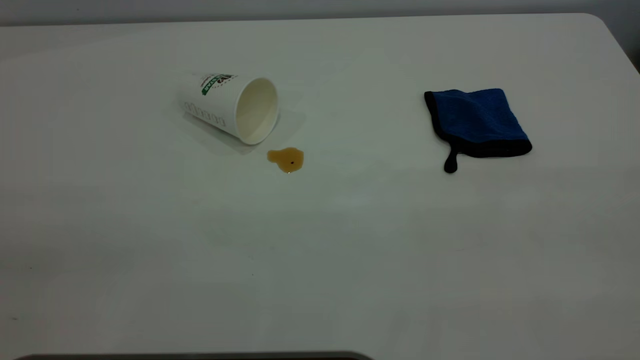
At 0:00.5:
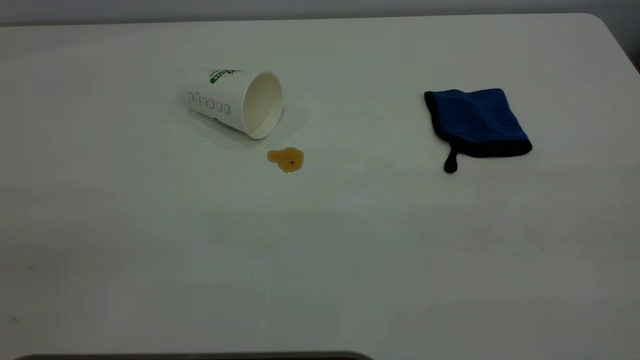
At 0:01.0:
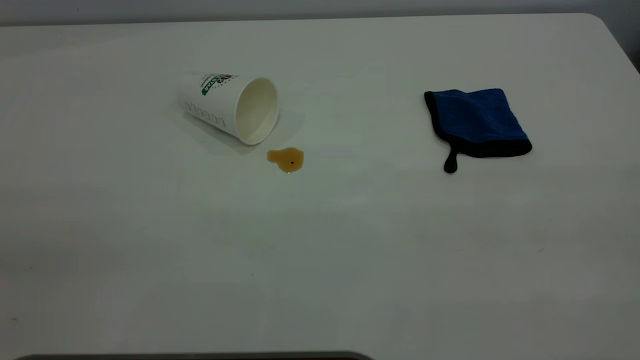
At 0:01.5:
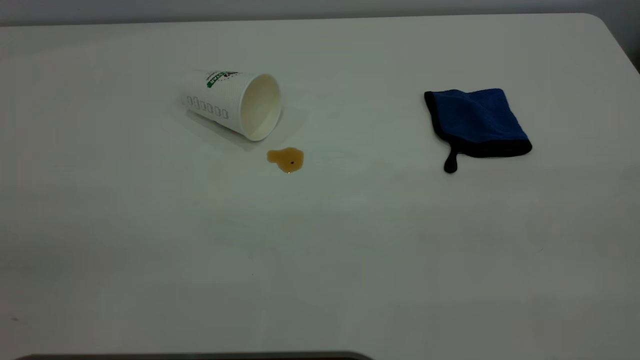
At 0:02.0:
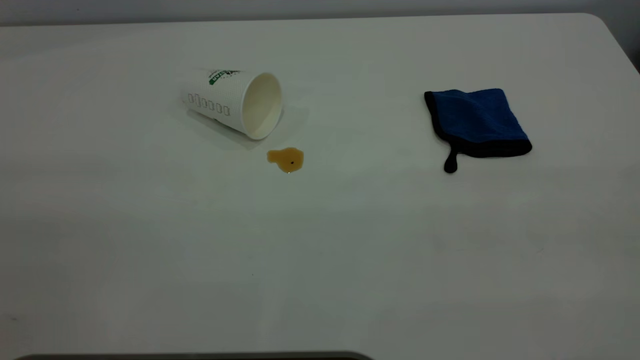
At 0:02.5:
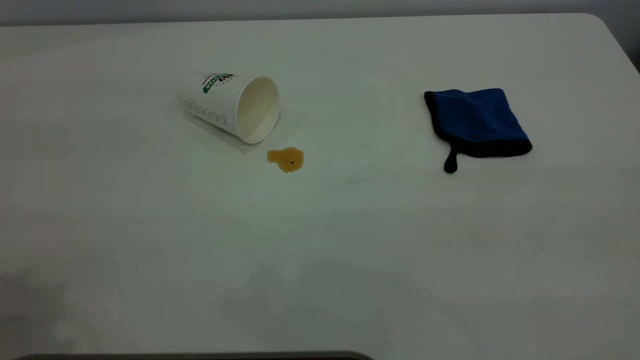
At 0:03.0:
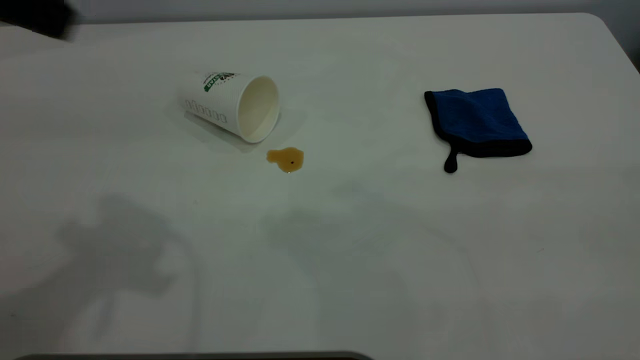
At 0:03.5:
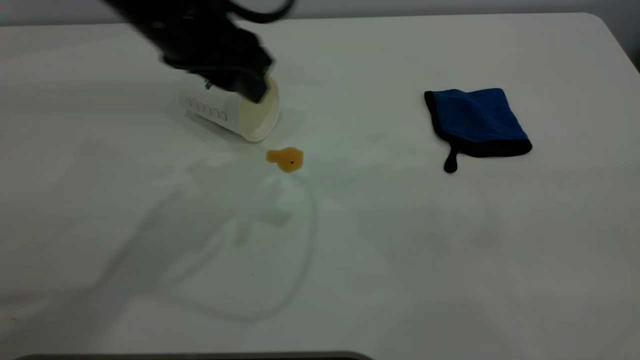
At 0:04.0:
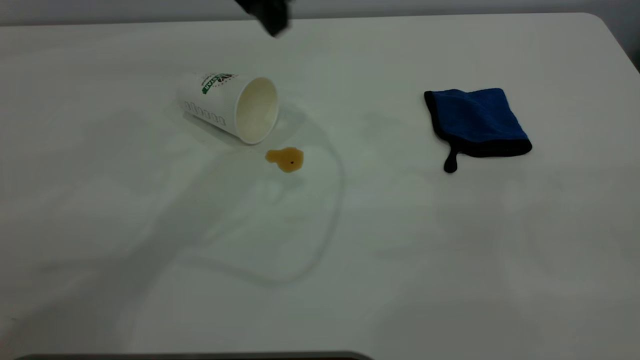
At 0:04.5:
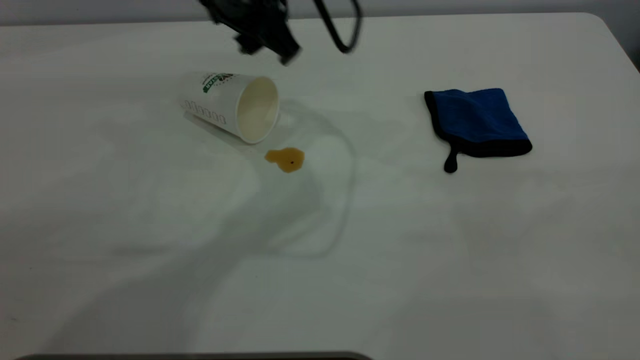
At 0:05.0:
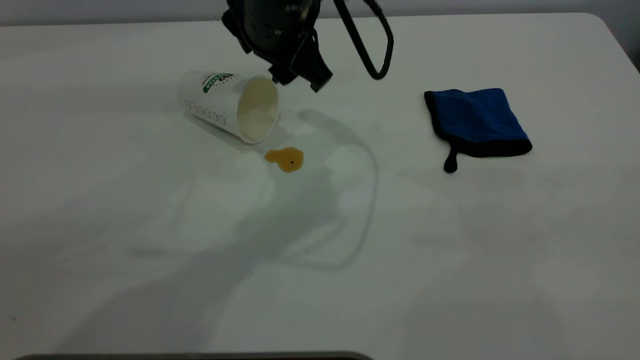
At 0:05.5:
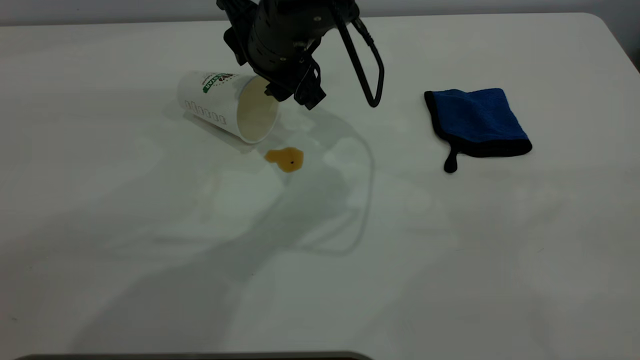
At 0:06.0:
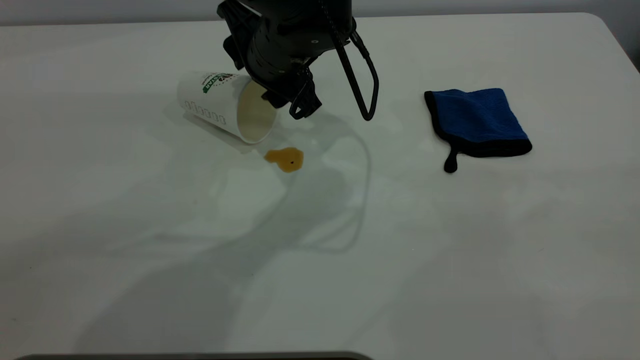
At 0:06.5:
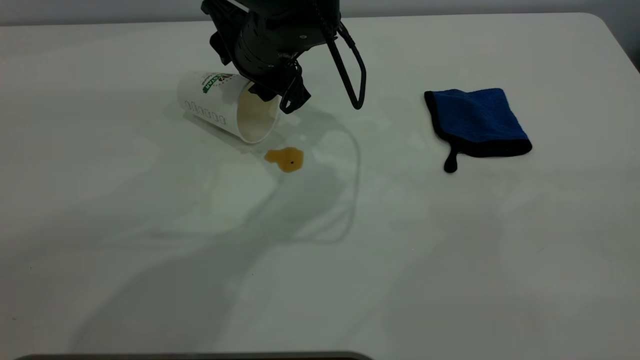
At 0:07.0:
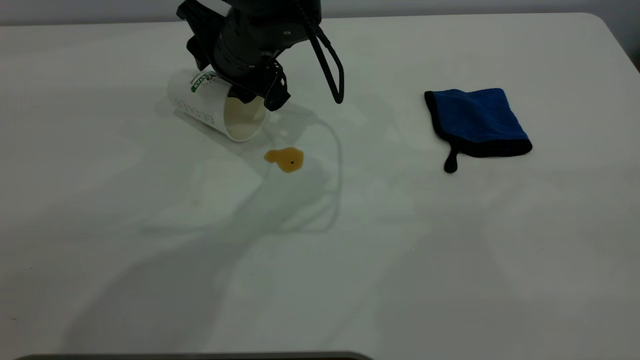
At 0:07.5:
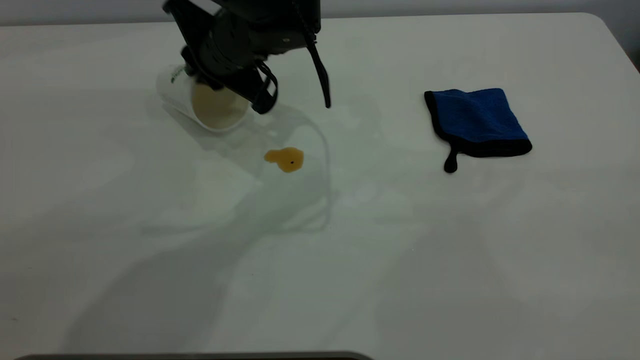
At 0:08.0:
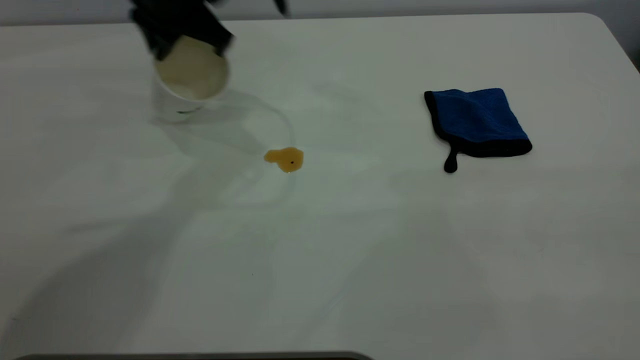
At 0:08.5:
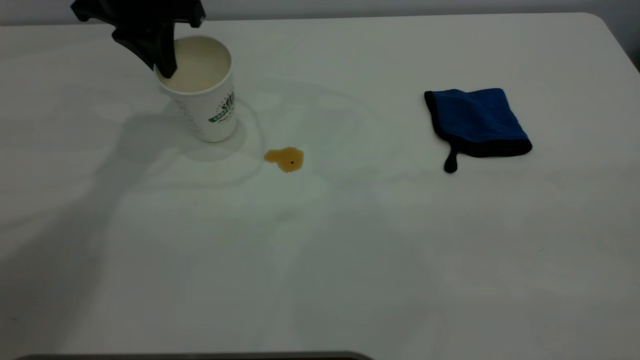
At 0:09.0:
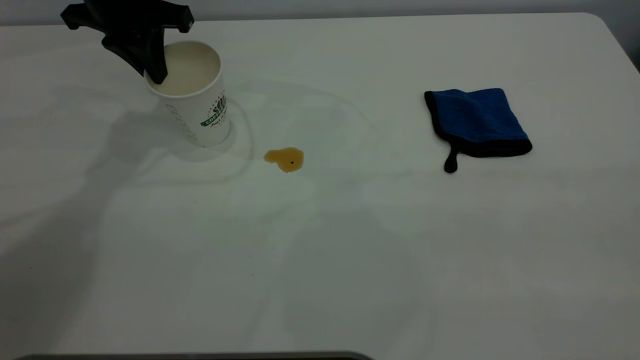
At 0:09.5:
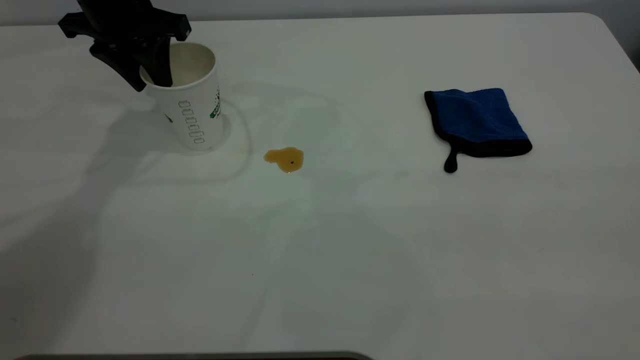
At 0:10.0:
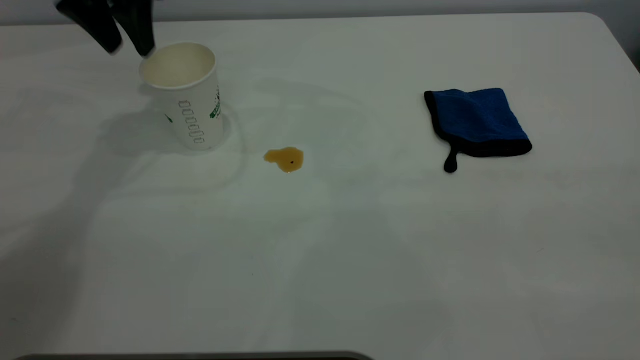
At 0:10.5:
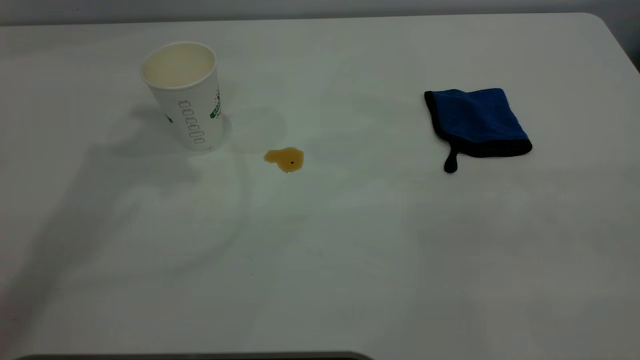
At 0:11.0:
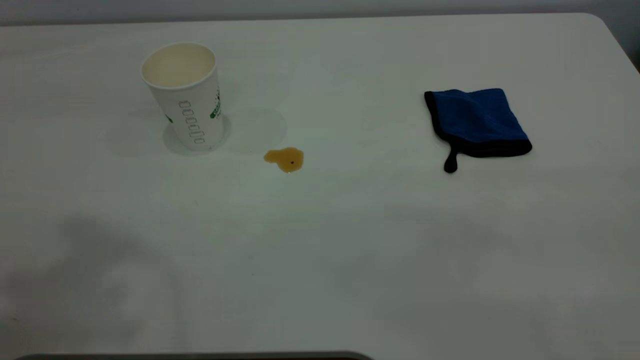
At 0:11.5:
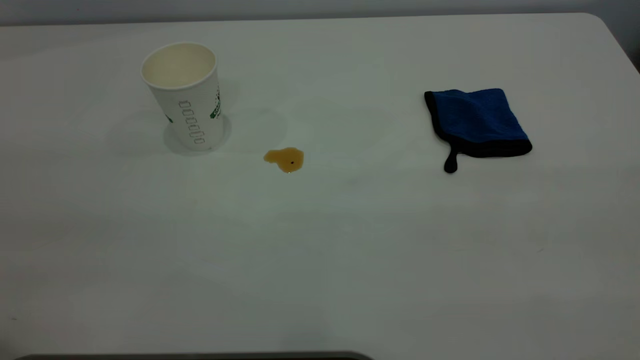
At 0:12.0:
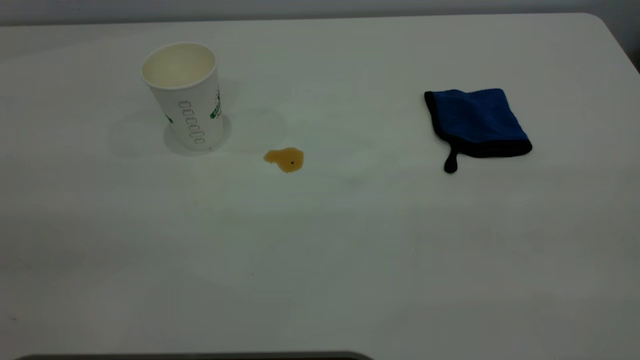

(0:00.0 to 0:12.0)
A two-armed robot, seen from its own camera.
Task of the whole recording: the left gripper pick up the fallen cup and place it upright, the right gripper grasp the blue rag and wipe the tea stain on the table, the right gripper put the blue rag back in its original position.
Step, 0:00.0 - 0:09.5: Stand the paper cup upright.
0:02.0 - 0:04.0: The left gripper shifts about 40 cm forward and to the right.
0:04.0 - 0:06.0: The left gripper shifts about 15 cm downward.
0:06.0 - 0:08.0: The left gripper moves to the left and upward, about 15 cm, and closes.
0:08.0 - 0:10.0: The left gripper moves to the left, about 10 cm, and opens.
0:10.0 - 0:12.0: The left gripper shifts roughly 40 cm backward.

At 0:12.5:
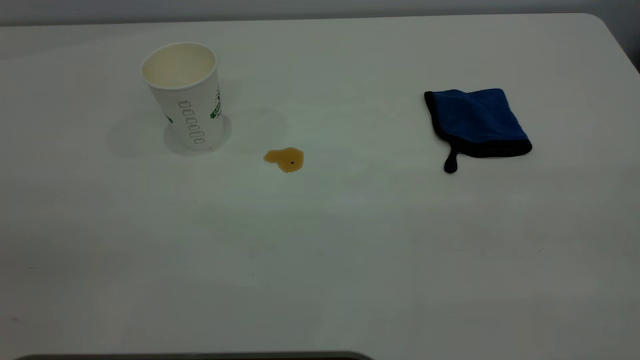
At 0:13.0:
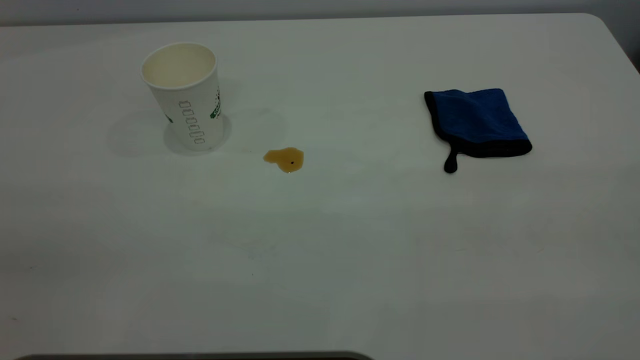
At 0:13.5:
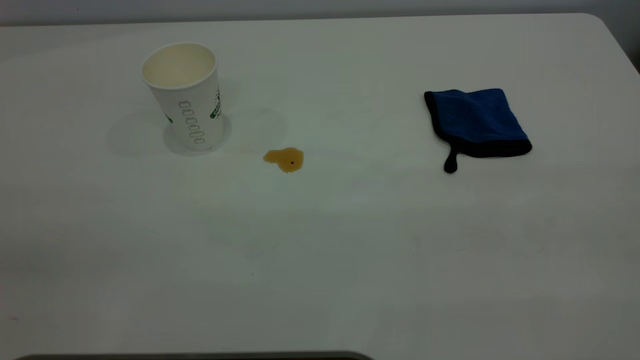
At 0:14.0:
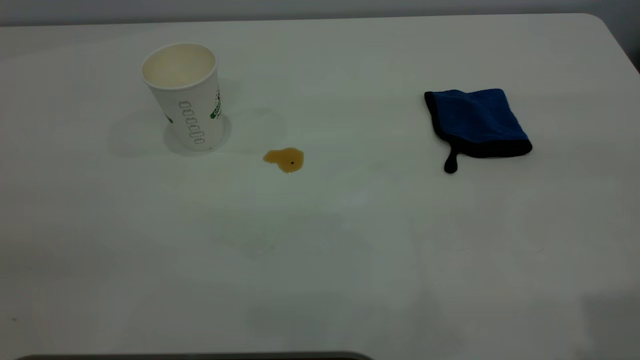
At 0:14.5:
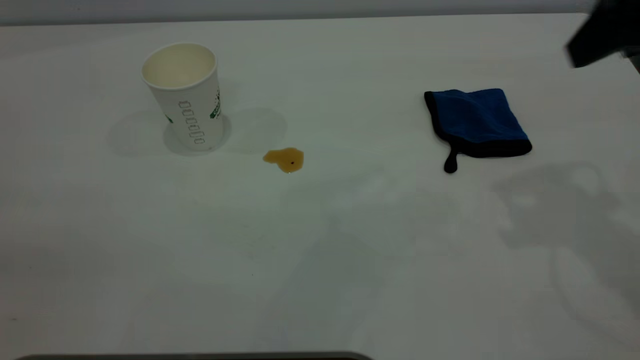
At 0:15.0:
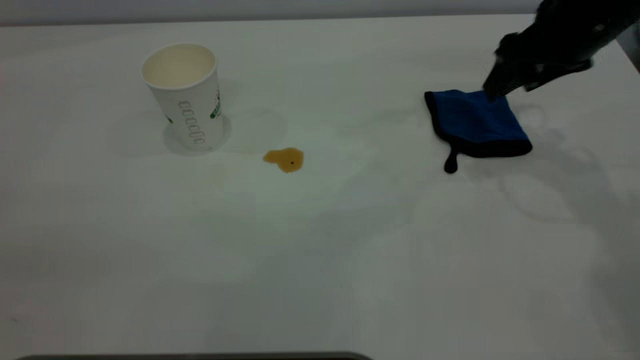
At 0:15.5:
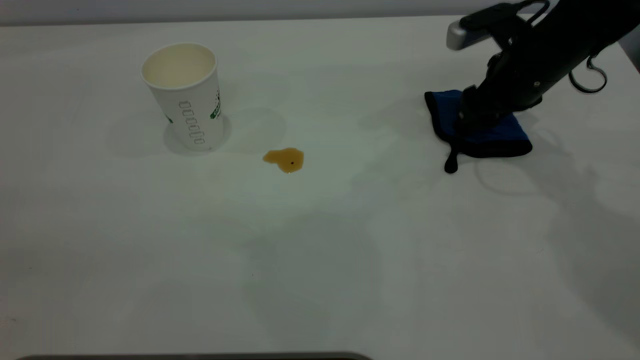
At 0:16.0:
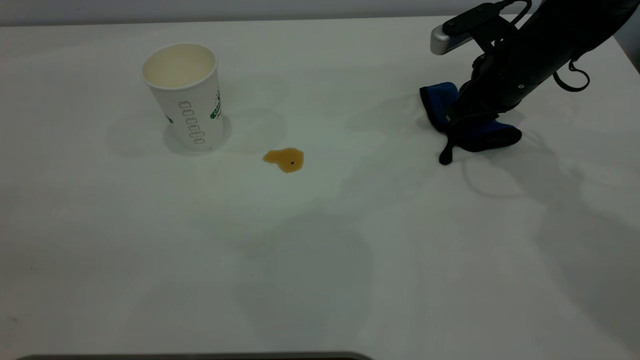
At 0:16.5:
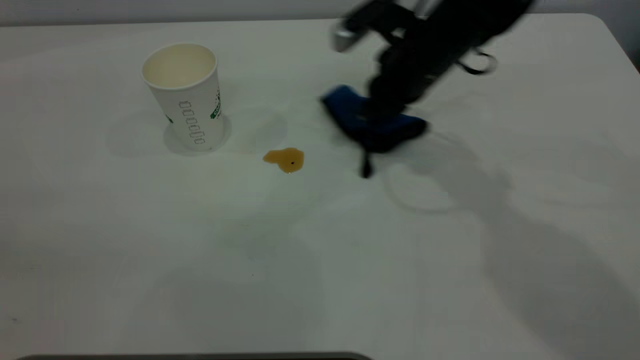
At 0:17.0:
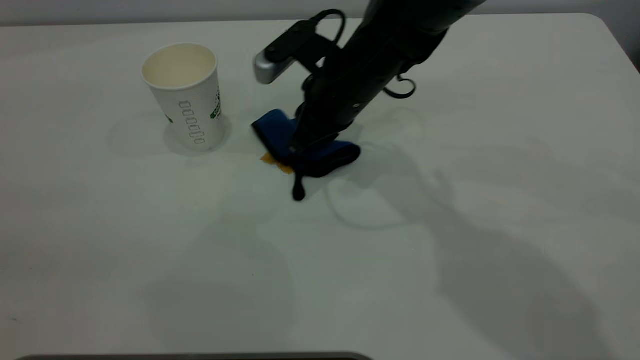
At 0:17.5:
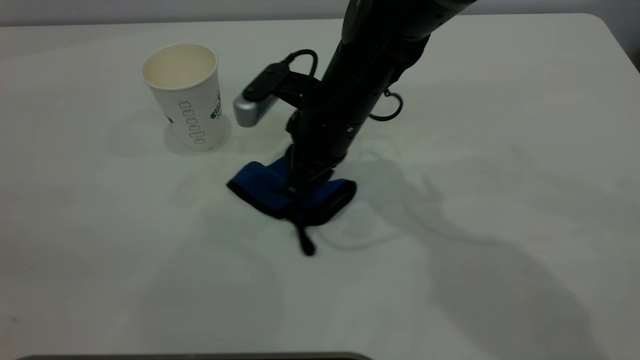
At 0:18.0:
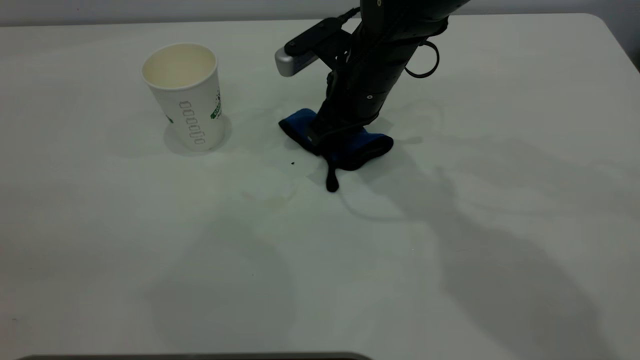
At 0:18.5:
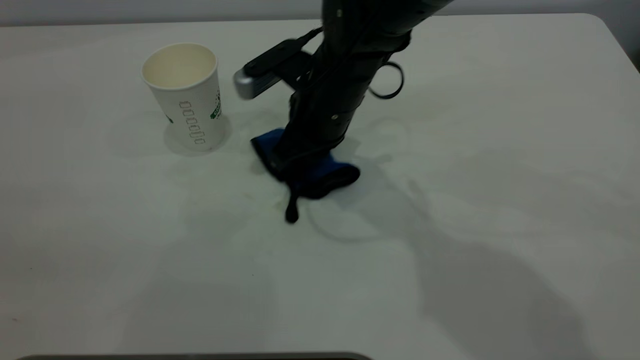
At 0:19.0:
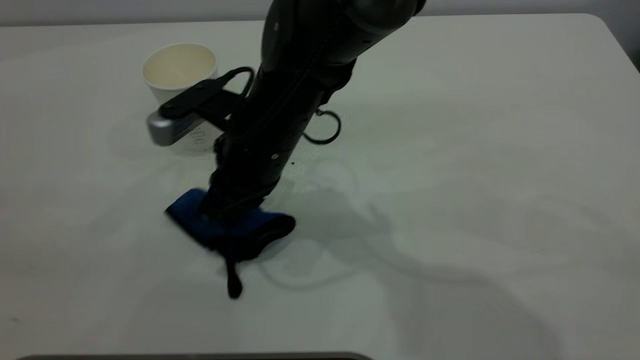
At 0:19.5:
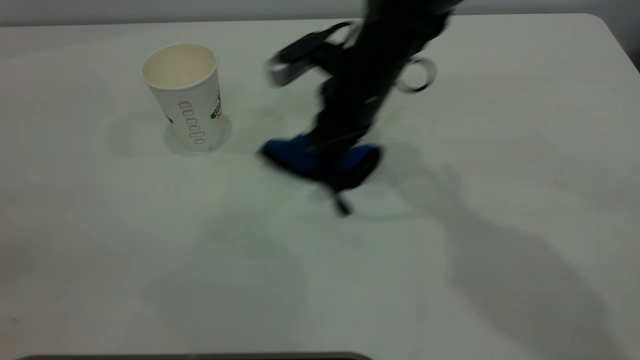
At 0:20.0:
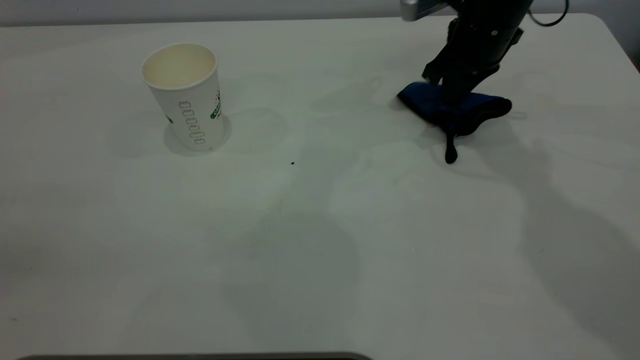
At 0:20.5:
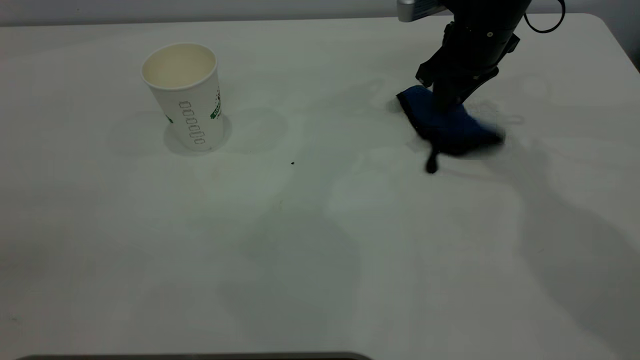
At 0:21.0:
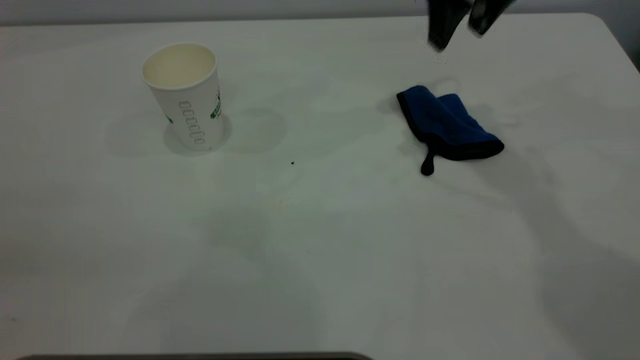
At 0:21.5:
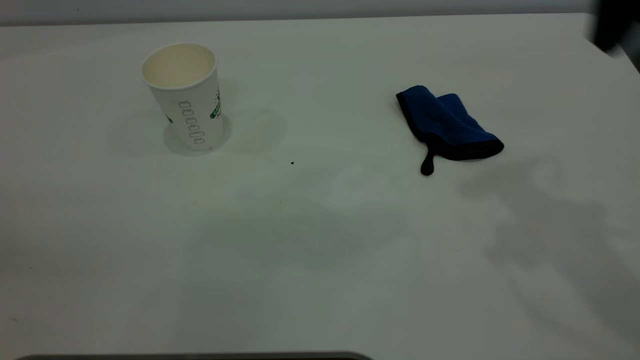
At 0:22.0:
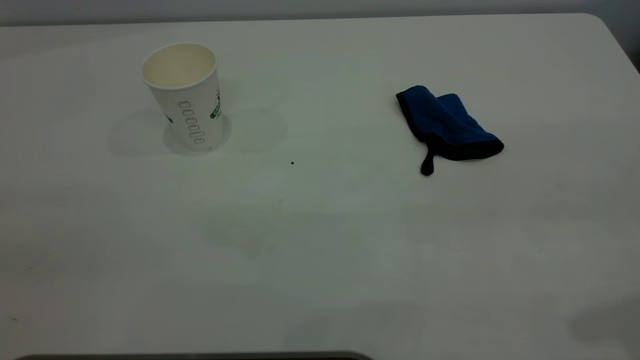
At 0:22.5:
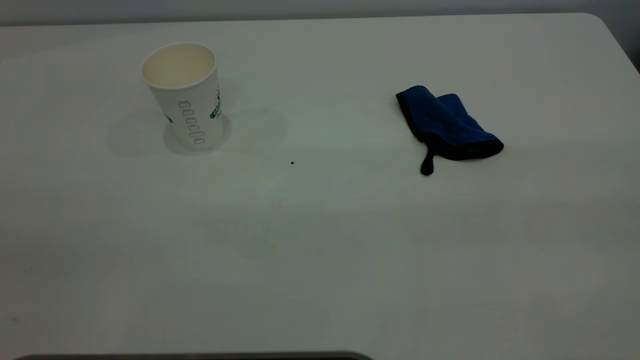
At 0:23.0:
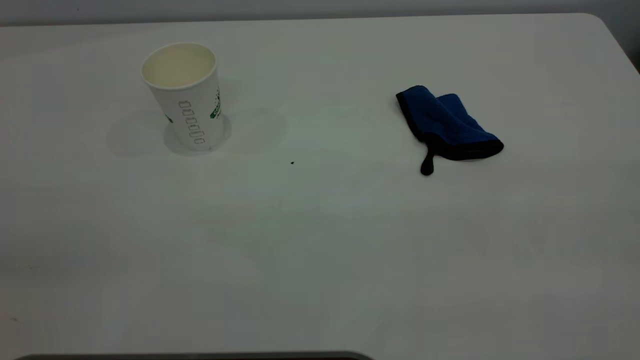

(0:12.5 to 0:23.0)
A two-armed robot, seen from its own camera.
Task of the whole recording: the left gripper pick up the fallen cup and place it upright, the right gripper grasp the blue rag and wipe the tea stain on the table, the right gripper put the blue rag back in its original position.
Step, 0:12.5 - 0:20.5: Wipe the stains off the table with a rag.
0:12.5 - 0:14.5: The right gripper moves forward, roughly 30 cm.
0:14.5 - 0:16.5: The right gripper is displaced to the left, downward and forward by roughly 25 cm, and closes its fingers.
0:16.5 - 0:19.0: The right gripper shifts some 20 cm to the left and backward.
0:19.0 - 0:21.0: The right gripper is displaced to the right, upward and forward by about 30 cm, and opens.
0:21.0 - 0:23.0: The right gripper goes some 40 cm backward.
